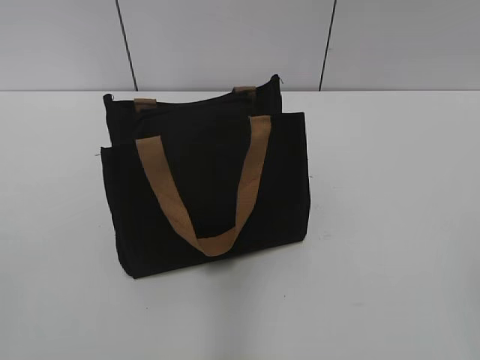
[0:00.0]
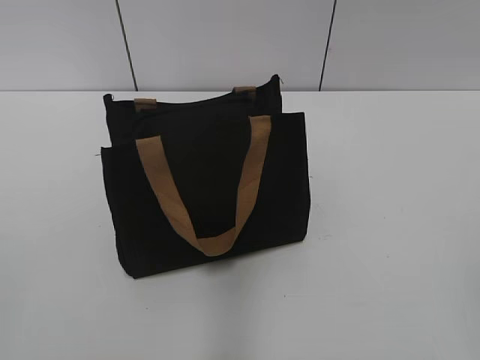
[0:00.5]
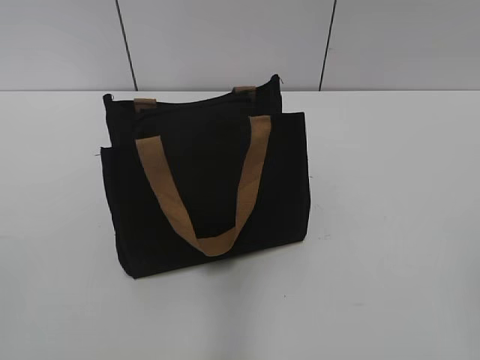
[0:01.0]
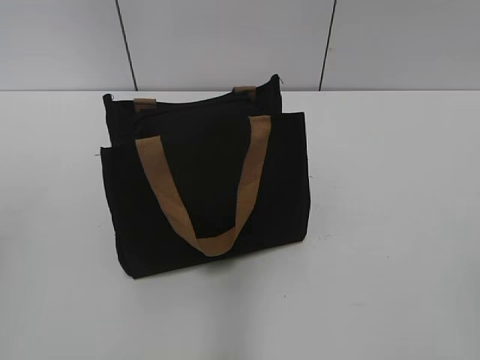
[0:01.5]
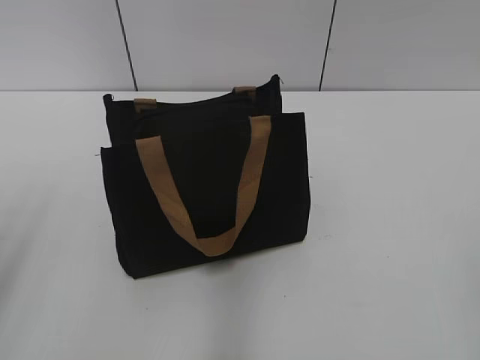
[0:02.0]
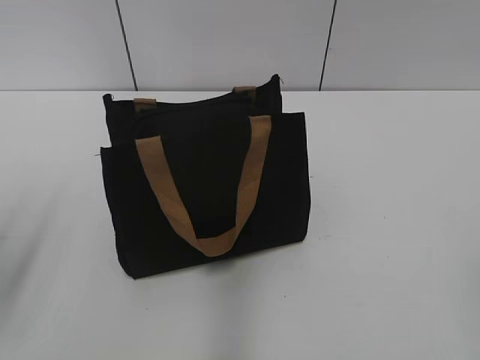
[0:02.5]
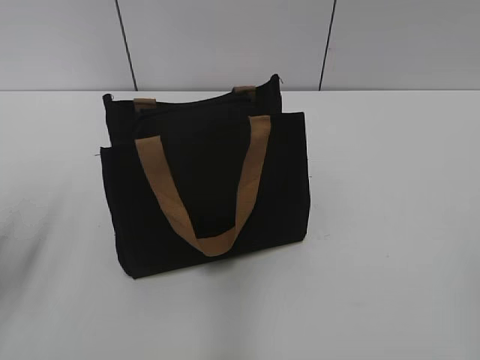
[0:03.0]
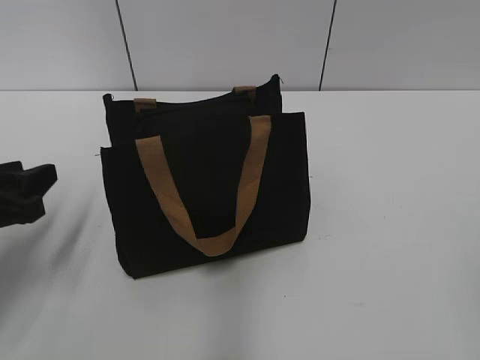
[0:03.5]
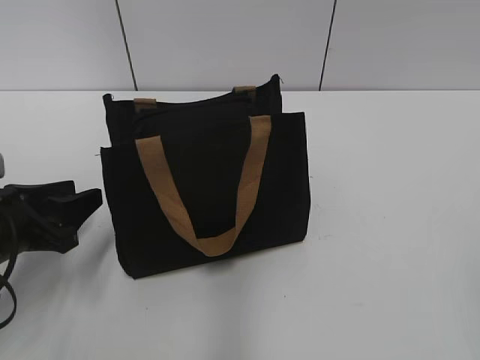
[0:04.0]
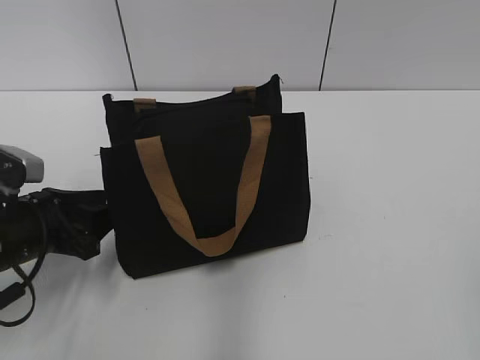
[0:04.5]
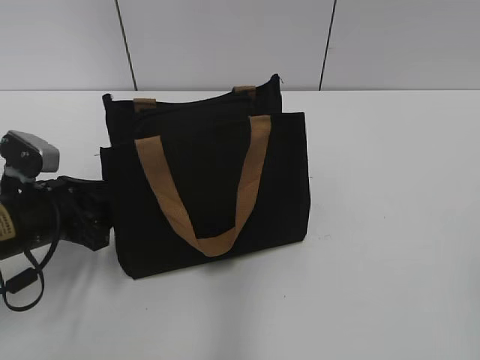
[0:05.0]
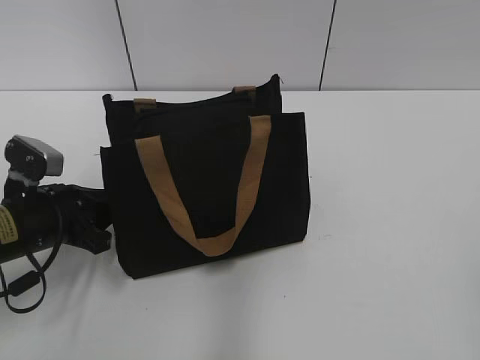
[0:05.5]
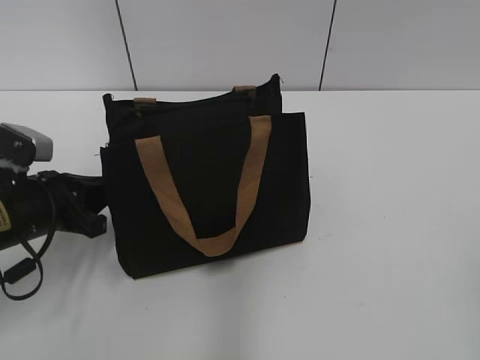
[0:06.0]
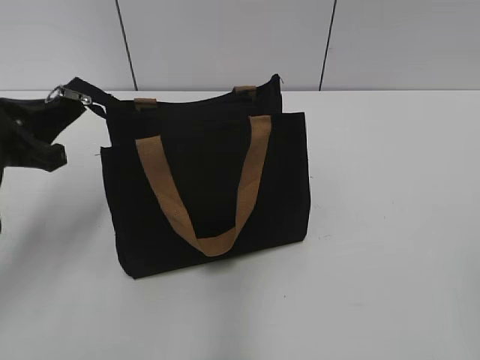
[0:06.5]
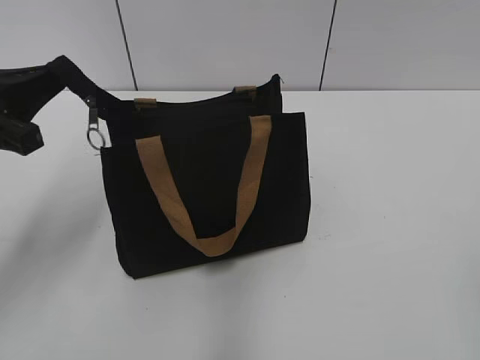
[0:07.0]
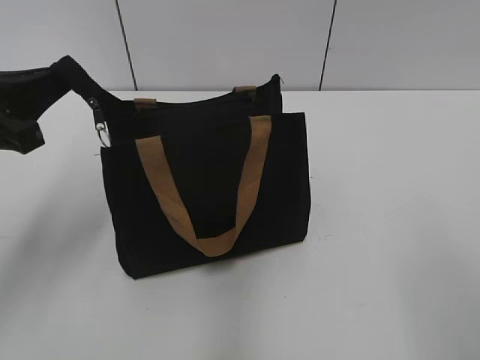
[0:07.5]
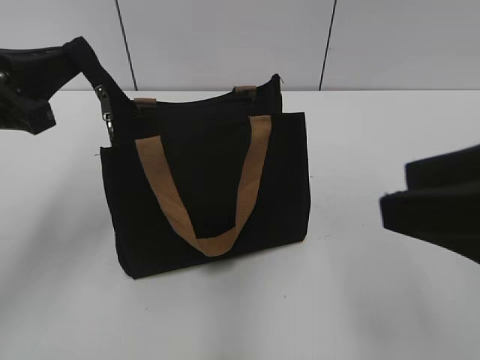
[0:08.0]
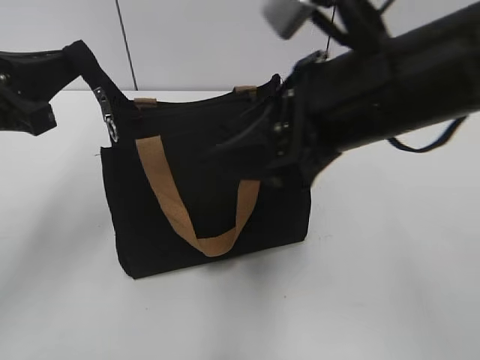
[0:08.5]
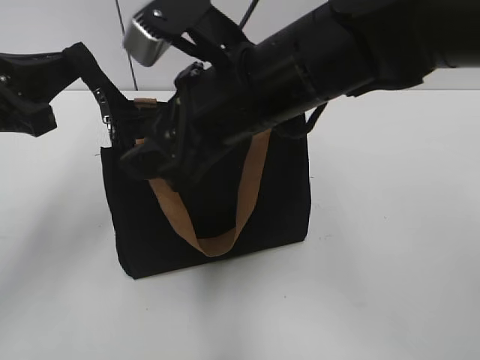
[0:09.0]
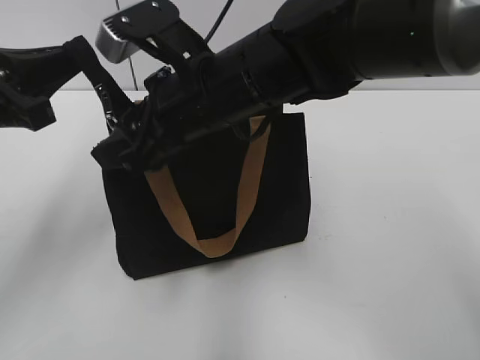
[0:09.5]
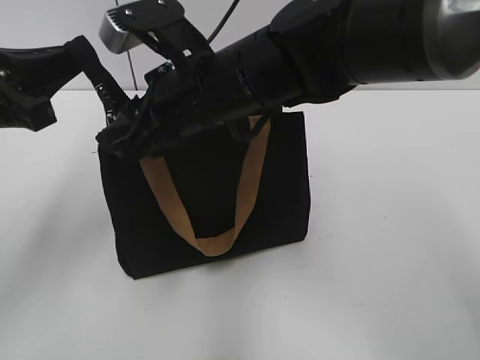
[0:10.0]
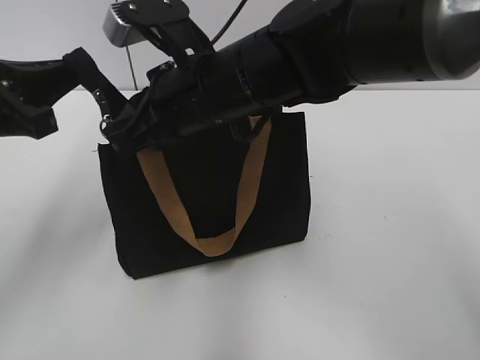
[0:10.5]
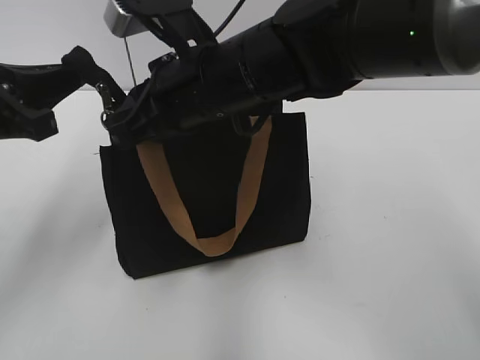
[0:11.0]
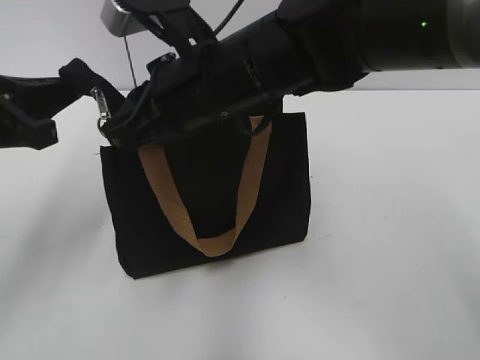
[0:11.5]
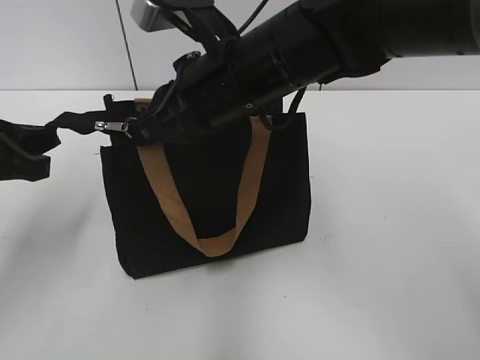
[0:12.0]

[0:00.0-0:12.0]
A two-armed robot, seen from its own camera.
0:02.0 to 0:04.0: The left gripper heads downward and forward, covering approximately 20 cm.
0:04.0 to 0:06.0: The left gripper closes up.
0:06.0 to 0:08.0: The left gripper heads upward, covering some 15 cm. The right gripper moves forward and to the left, roughly 15 cm.
0:08.0 to 0:10.0: The right gripper goes some 30 cm to the left and forward, and closes up.
0:10.0 to 0:12.0: The right gripper closes.

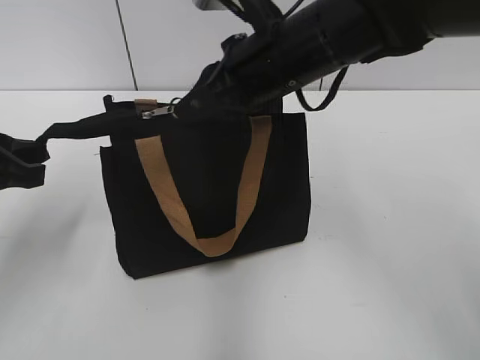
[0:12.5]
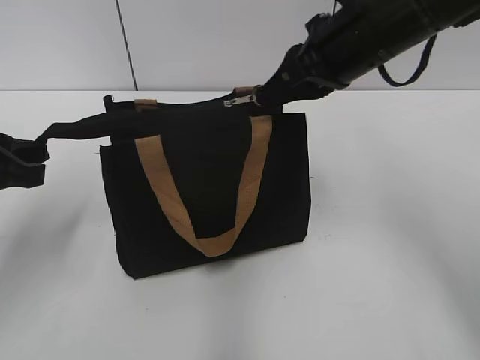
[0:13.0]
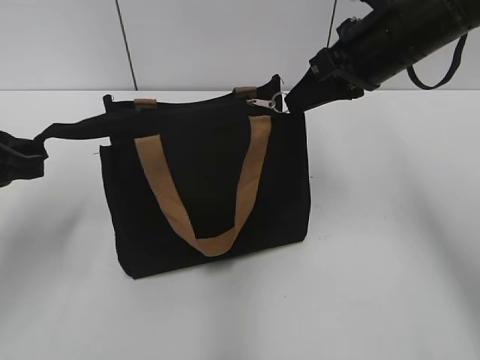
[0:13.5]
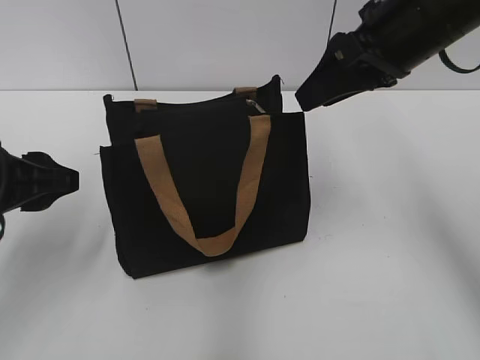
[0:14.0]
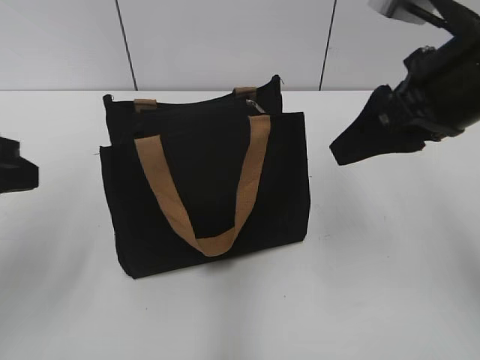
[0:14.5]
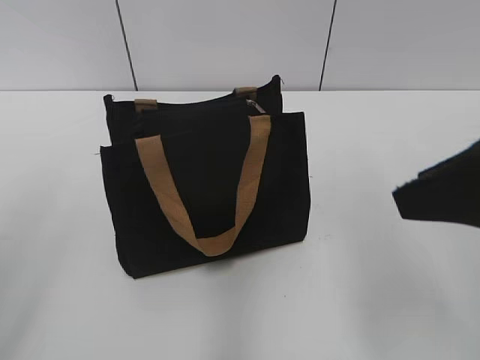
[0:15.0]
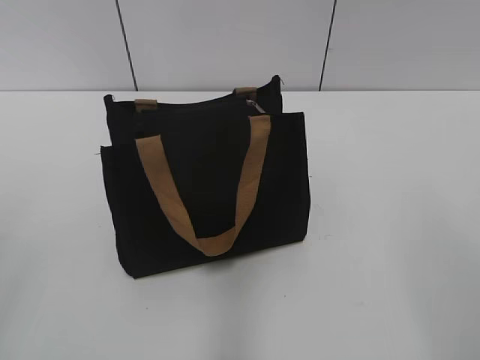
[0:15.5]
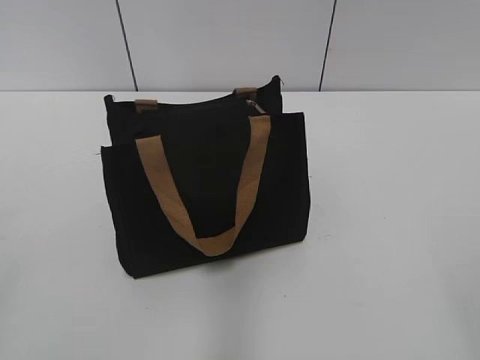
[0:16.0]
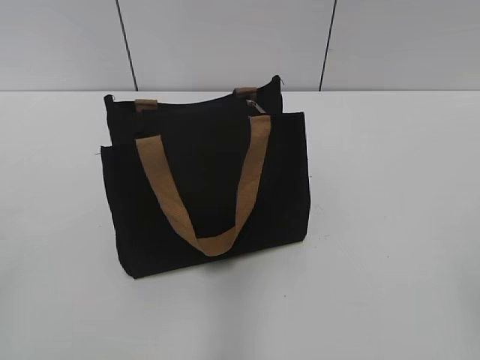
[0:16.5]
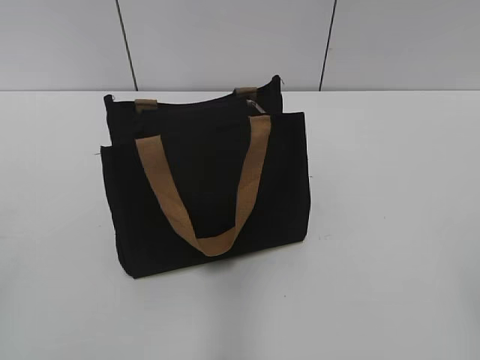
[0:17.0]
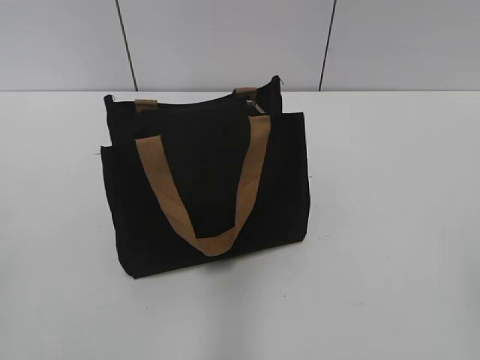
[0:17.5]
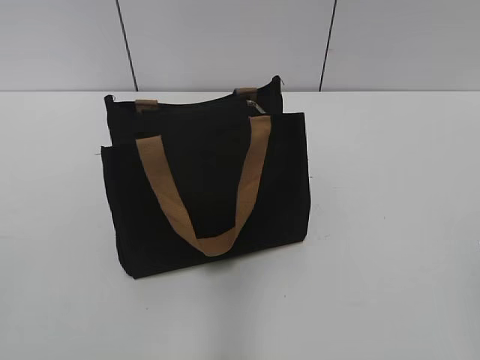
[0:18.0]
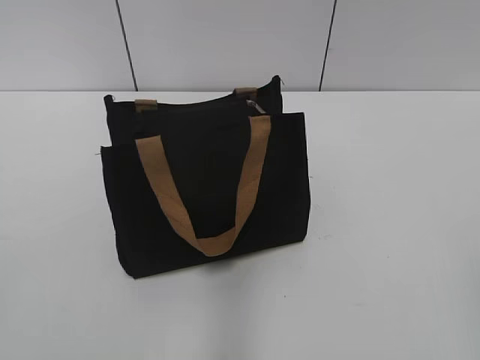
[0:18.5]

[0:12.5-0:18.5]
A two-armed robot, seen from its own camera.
0:12.5 to 0:14.5: The left gripper moves roughly 5 cm, and opens up, while the right gripper is displaced to the right and backward by some 15 cm, and opens.
0:14.5 to 0:16.5: The right gripper shifts some 25 cm backward. The left gripper shifts approximately 20 cm backward and to the left.

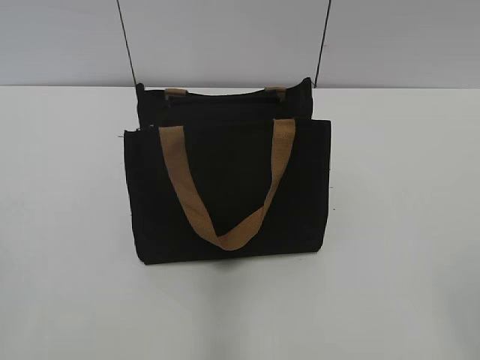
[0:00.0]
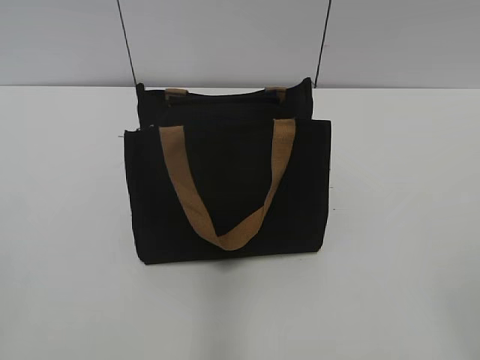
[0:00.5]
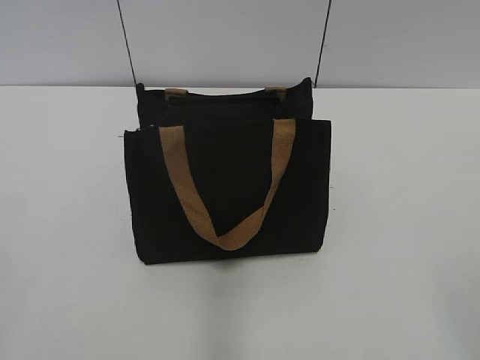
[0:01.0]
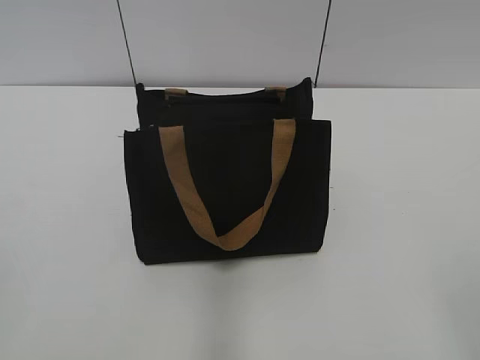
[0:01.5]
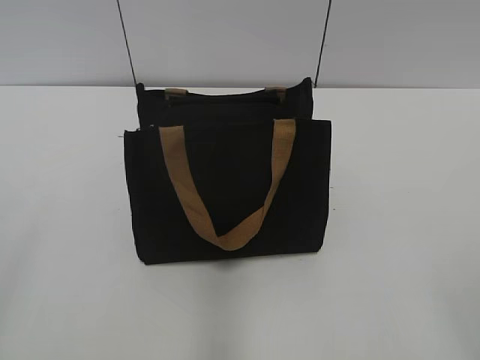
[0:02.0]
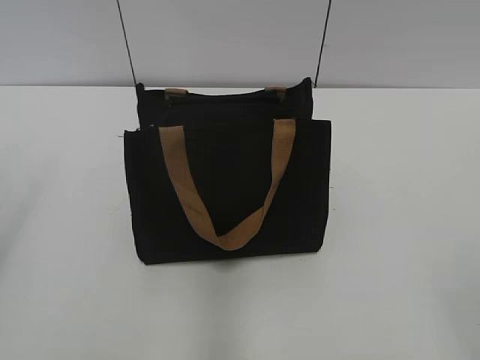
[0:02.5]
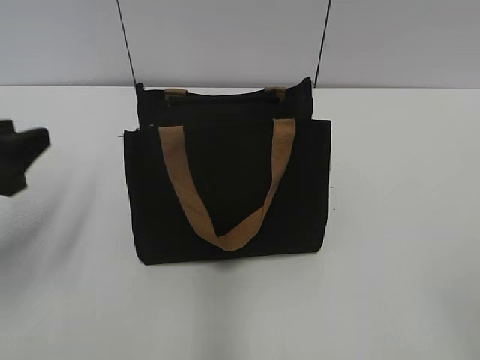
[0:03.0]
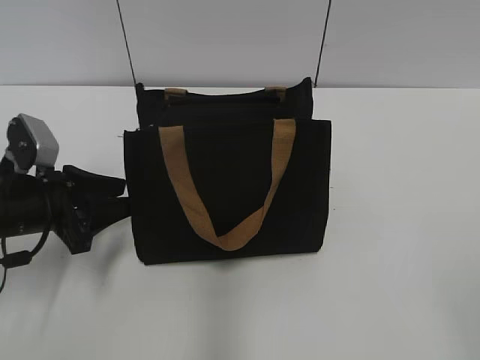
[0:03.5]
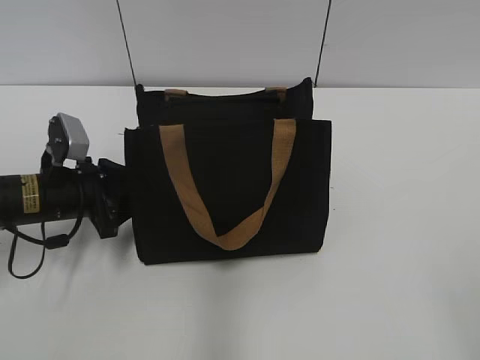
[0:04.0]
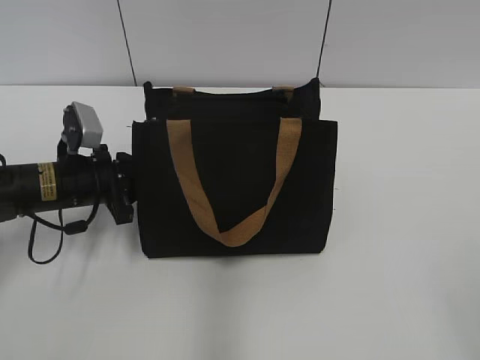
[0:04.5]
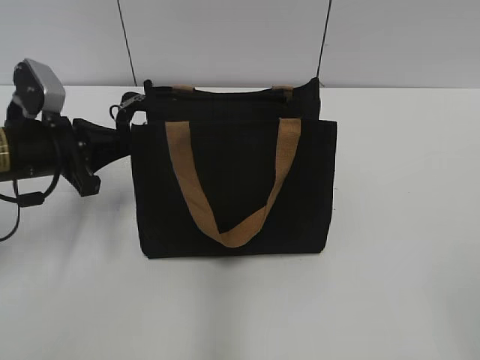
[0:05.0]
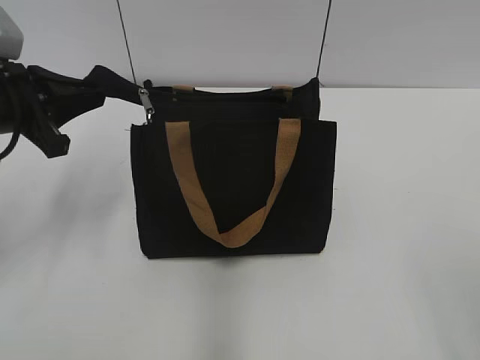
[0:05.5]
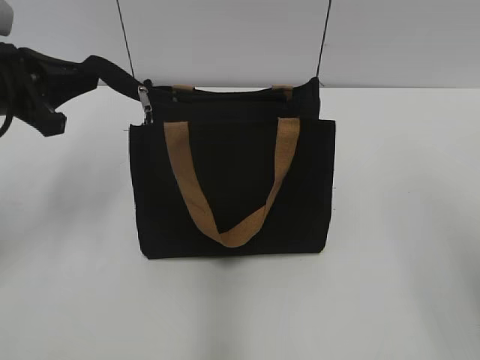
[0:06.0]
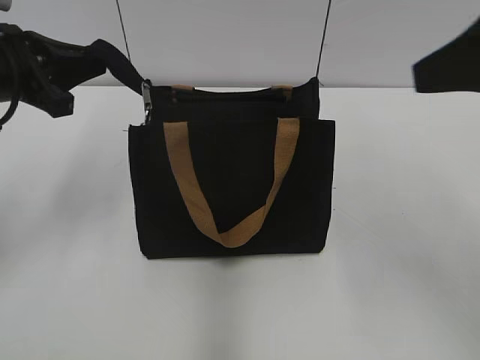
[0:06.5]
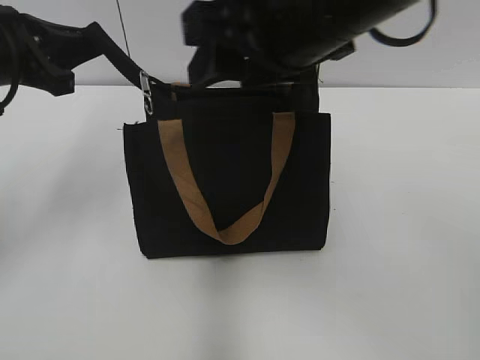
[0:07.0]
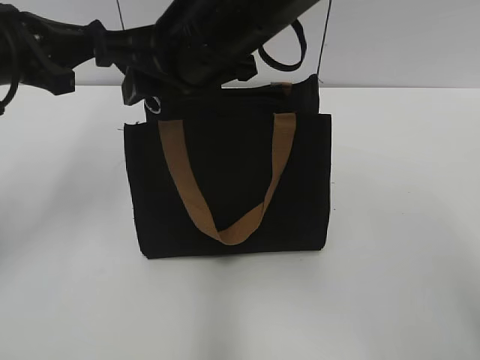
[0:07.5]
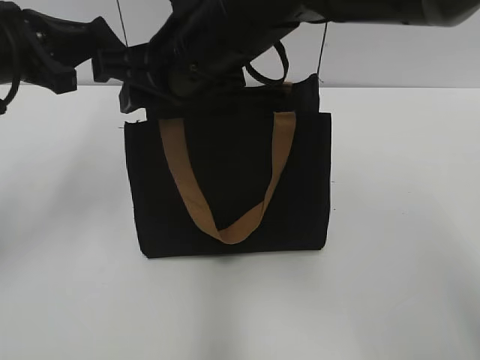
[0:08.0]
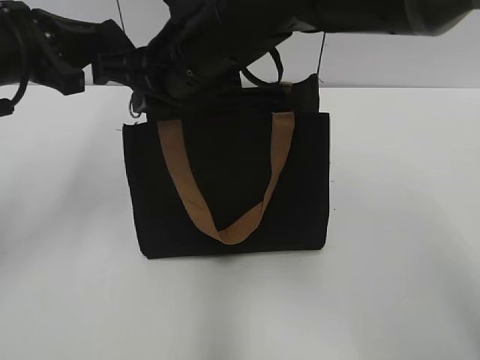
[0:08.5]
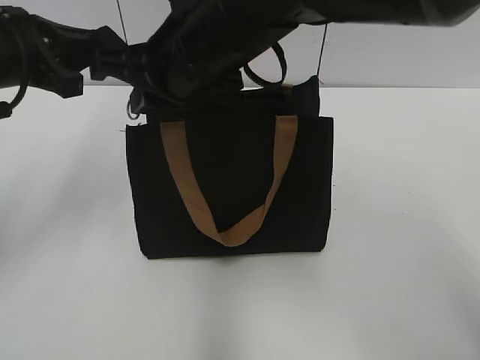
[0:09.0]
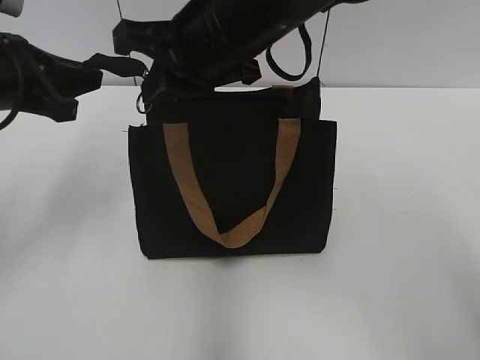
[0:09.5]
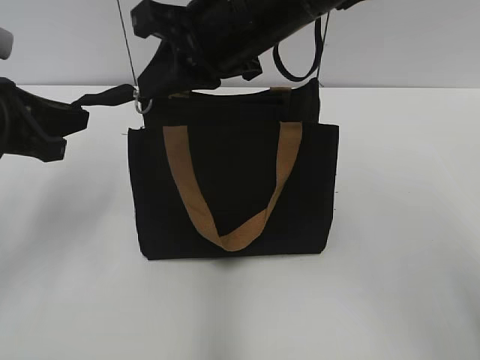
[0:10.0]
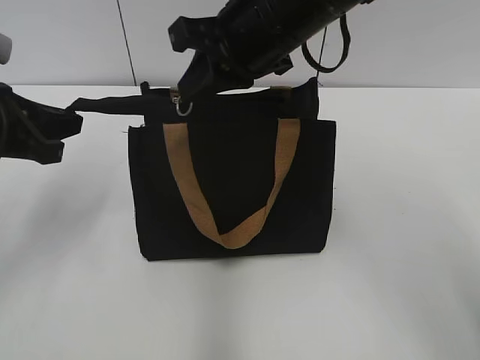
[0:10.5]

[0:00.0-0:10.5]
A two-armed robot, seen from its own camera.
0:02.0 to 0:04.0: The left gripper is displaced forward and downward by approximately 35 cm, and closes.
0:04.0 to 0:06.5: The right gripper goes some 20 cm forward and upward. The left gripper travels upward by some 15 cm, and closes up.
0:06.5 to 0:08.5: The right gripper heads to the left and forward, covering roughly 25 cm, and closes its fingers.
0:08.5 to 0:10.5: The right gripper moves to the right, roughly 5 cm. Meanwhile the left gripper shifts by about 5 cm.
